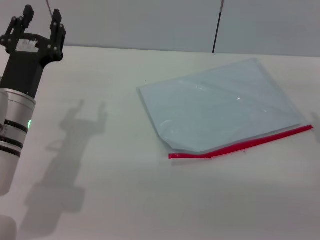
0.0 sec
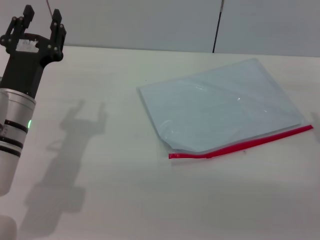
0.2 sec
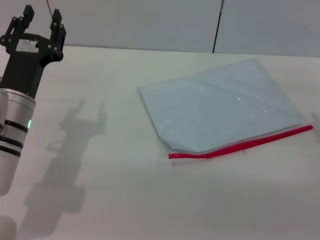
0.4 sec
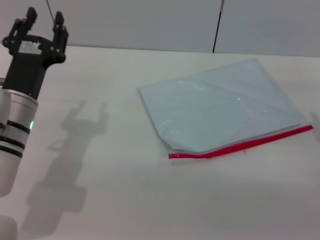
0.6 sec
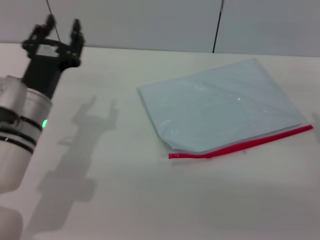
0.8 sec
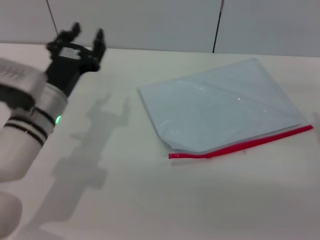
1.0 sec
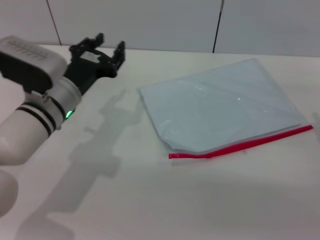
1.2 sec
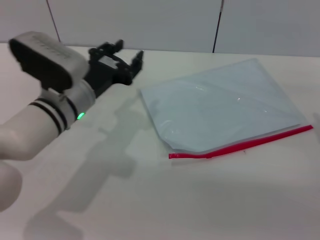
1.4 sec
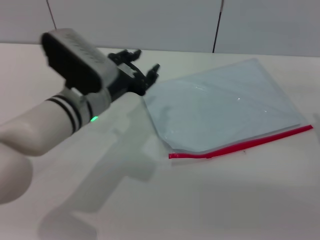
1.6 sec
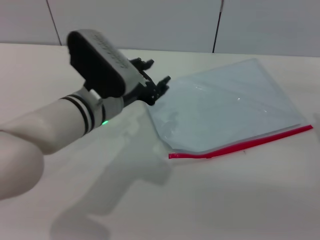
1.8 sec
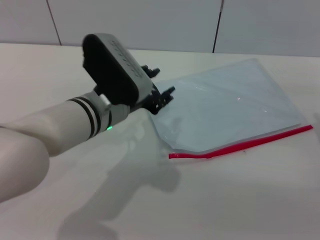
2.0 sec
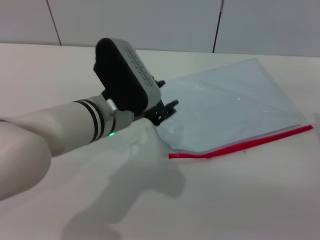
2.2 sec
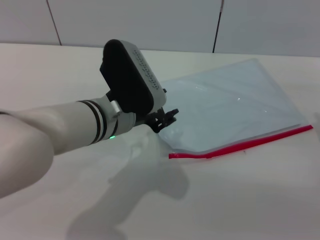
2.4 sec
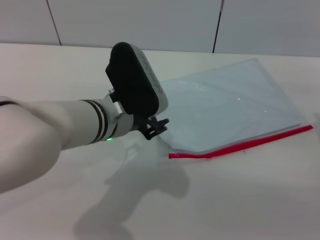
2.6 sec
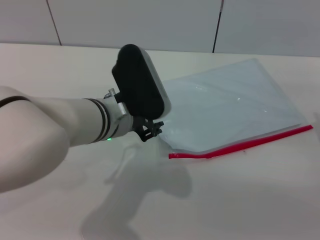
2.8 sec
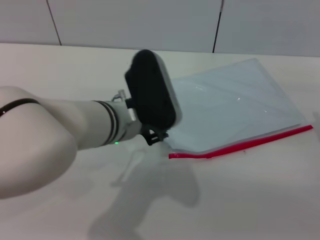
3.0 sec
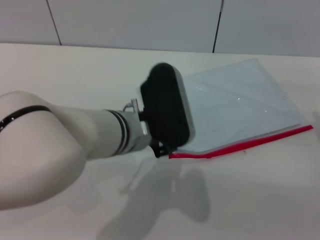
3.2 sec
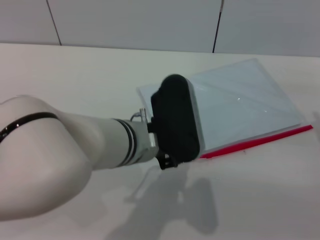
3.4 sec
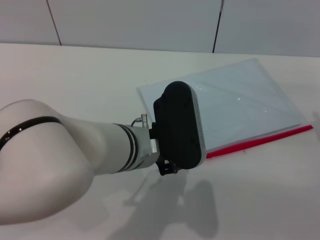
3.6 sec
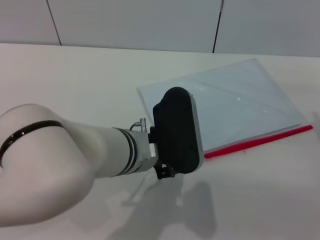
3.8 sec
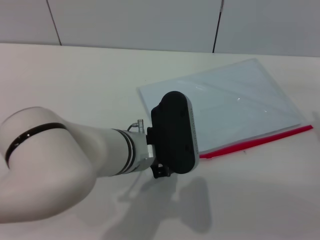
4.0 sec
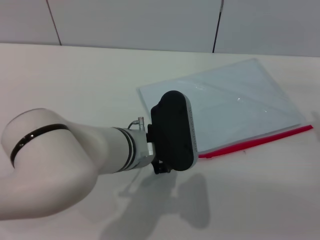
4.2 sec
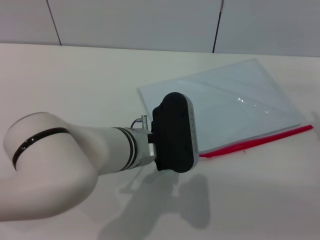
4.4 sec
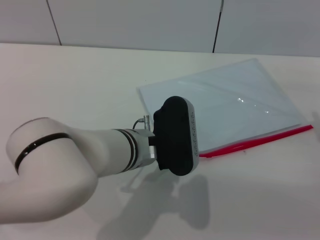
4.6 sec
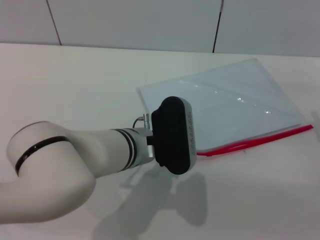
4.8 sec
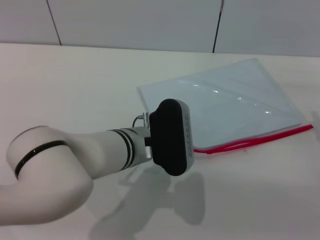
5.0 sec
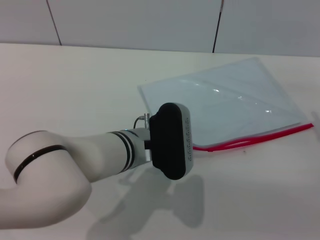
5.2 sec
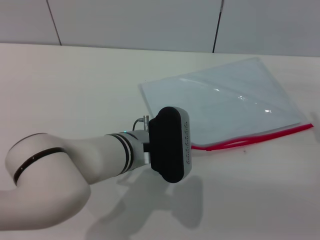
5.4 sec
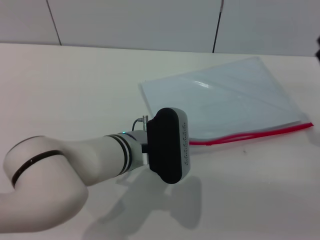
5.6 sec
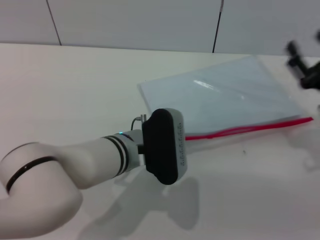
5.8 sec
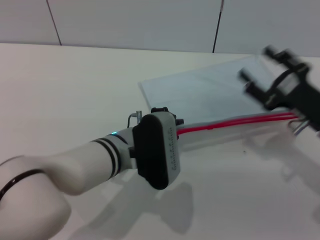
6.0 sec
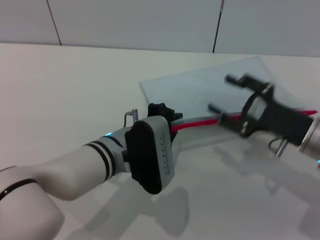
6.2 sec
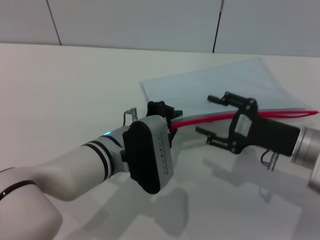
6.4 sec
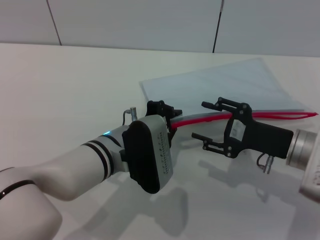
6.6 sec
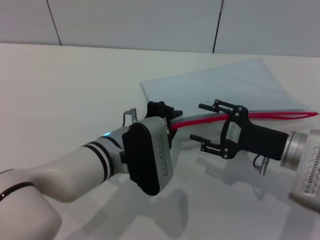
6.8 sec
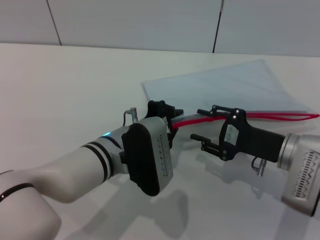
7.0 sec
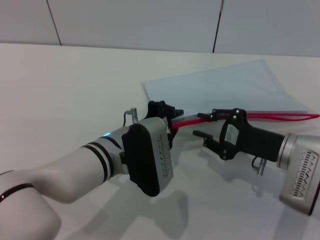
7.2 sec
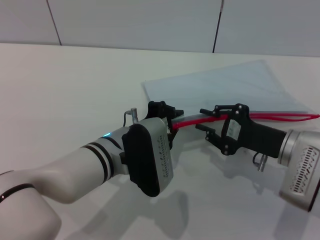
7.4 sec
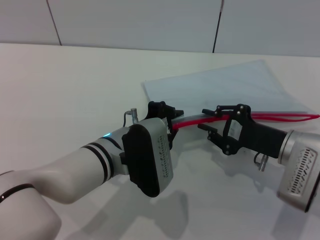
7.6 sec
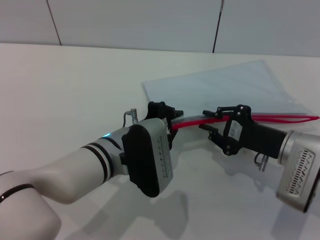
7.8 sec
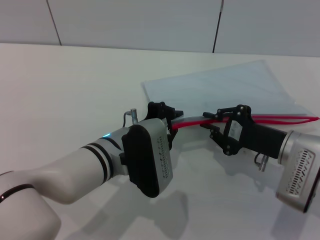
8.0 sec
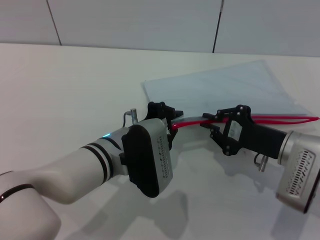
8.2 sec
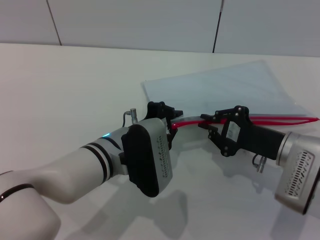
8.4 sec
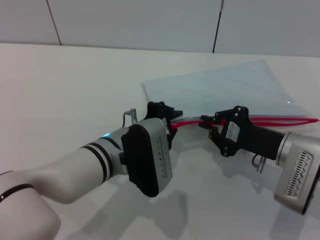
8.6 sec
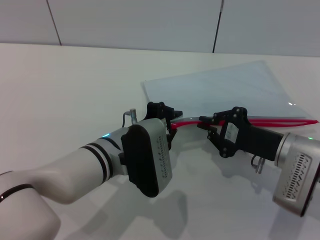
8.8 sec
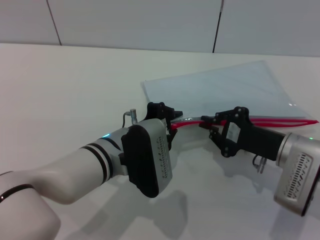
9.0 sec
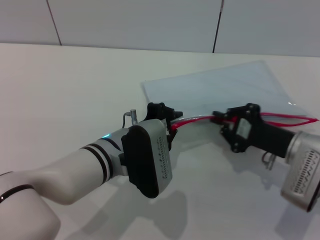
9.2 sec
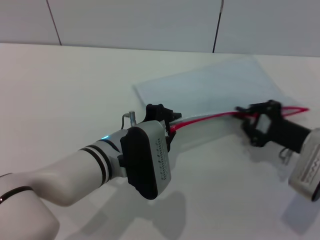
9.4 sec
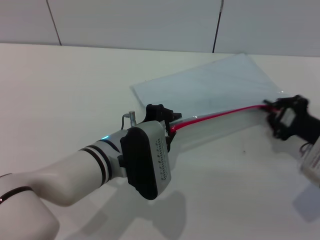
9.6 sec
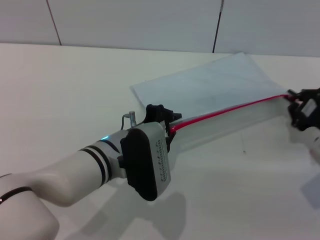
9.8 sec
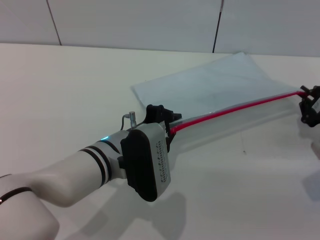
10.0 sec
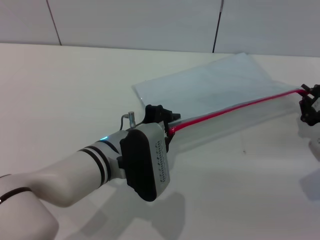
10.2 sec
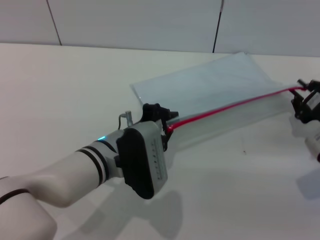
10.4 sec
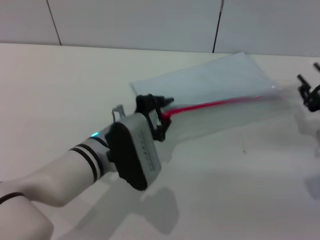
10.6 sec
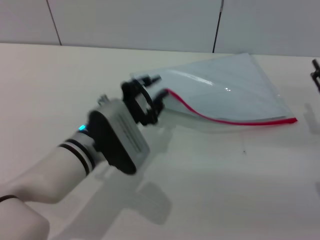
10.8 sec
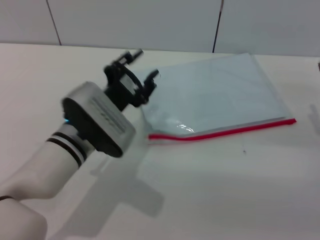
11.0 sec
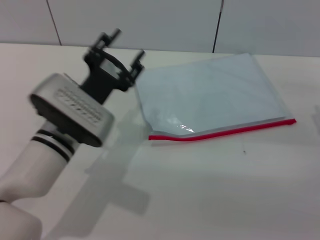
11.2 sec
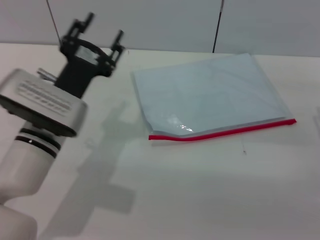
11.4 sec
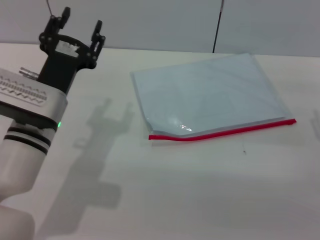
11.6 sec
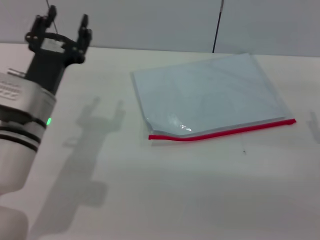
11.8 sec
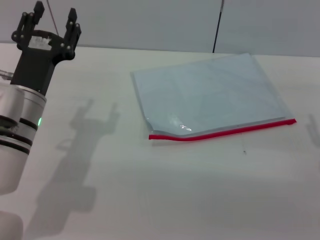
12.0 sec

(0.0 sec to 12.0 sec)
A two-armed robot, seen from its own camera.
Step, 0.0 sec - 6.0 sec: Pick up the transparent plastic bag with the left gripper.
Step, 6.2 sec - 10.2 sec: Pulling up the zipper on the transparent plastic bag with the right gripper to close it.
Step, 10.4 sec - 11.2 sec: Place the transparent plastic bag.
0.0 sec - 1.6 sec: The left gripper goes approximately 10 cm to the right.
1.6 sec - 3.0 sec: The left gripper shifts roughly 5 cm to the right.
4.4 sec - 6.0 sec: The left gripper closes.
6.0 sec - 7.6 sec: The right gripper shifts by approximately 5 cm, and closes up.
7.6 sec - 9.0 sec: The right gripper closes.
9.0 sec - 10.4 sec: The right gripper travels to the right by about 10 cm.
10.4 sec - 12.0 sec: The left gripper is displaced to the left by some 10 cm, and opens its fingers, while the right gripper shifts by some 5 cm, and opens its fingers.
